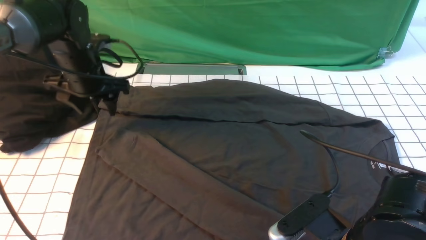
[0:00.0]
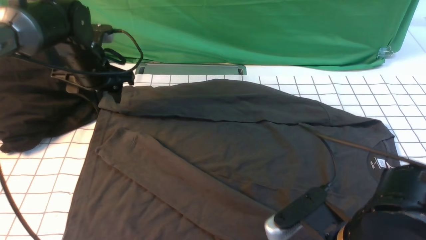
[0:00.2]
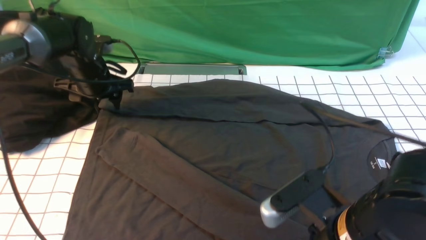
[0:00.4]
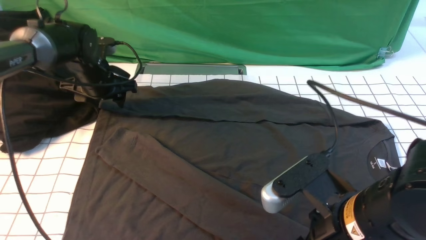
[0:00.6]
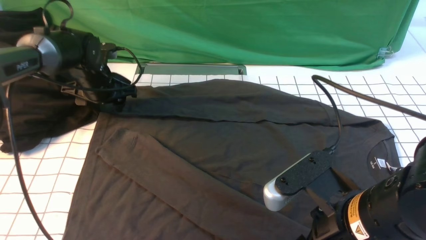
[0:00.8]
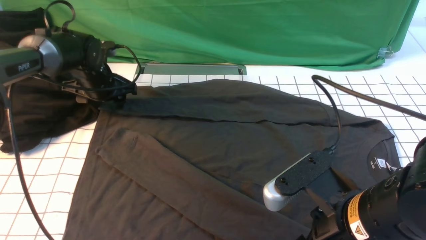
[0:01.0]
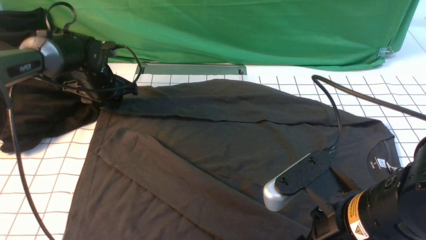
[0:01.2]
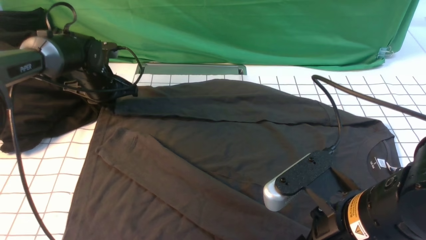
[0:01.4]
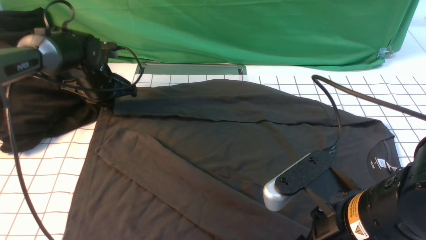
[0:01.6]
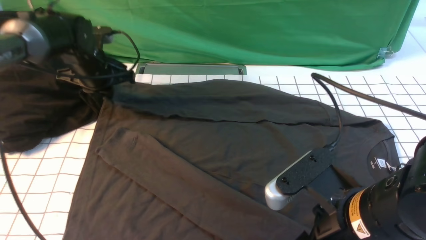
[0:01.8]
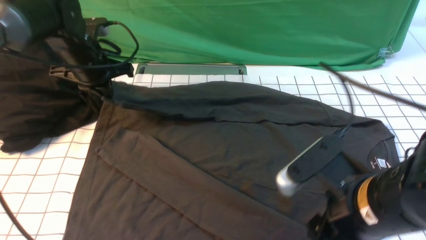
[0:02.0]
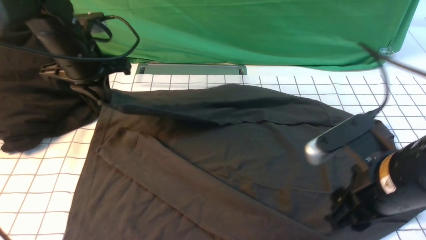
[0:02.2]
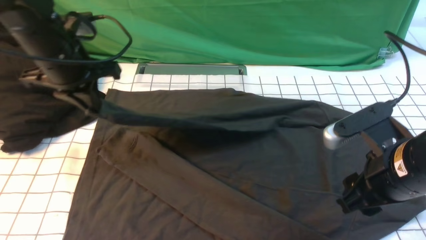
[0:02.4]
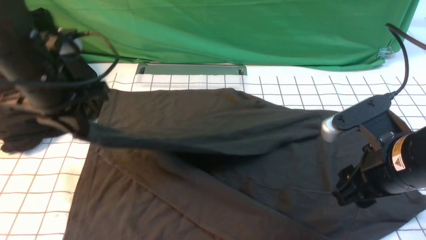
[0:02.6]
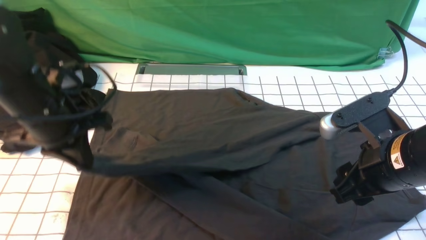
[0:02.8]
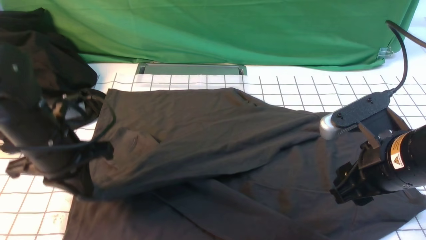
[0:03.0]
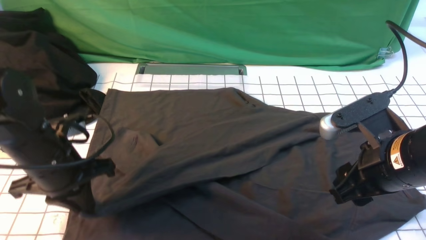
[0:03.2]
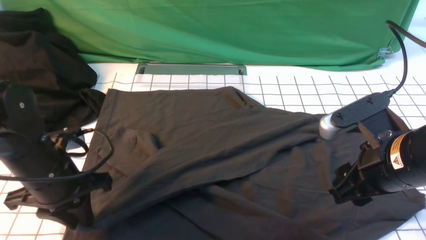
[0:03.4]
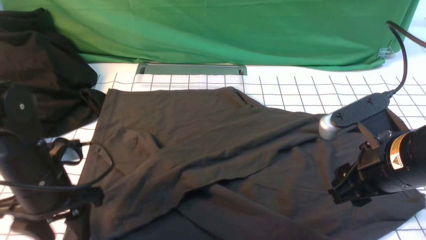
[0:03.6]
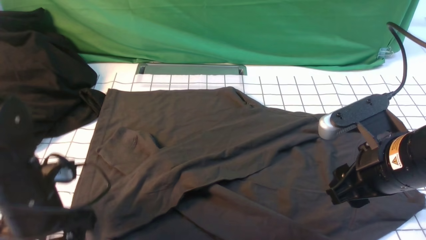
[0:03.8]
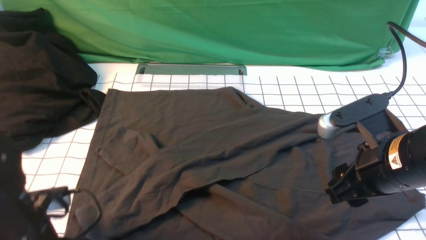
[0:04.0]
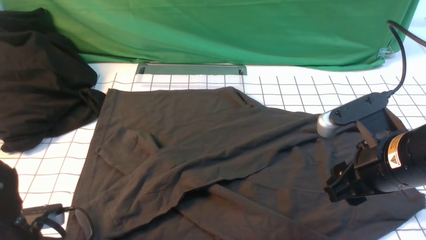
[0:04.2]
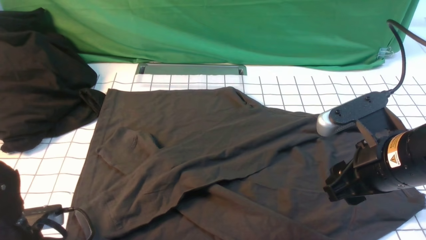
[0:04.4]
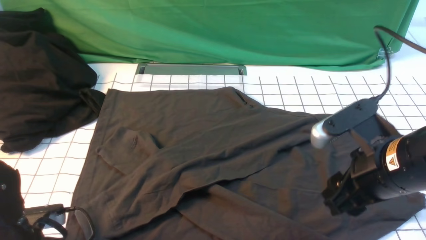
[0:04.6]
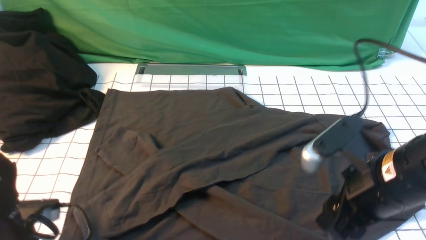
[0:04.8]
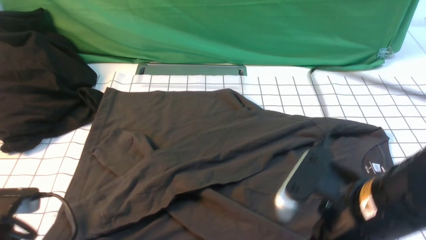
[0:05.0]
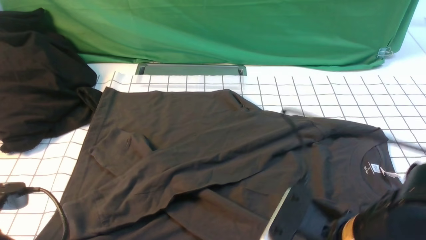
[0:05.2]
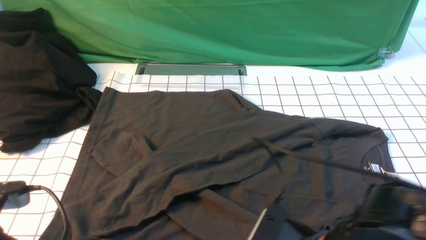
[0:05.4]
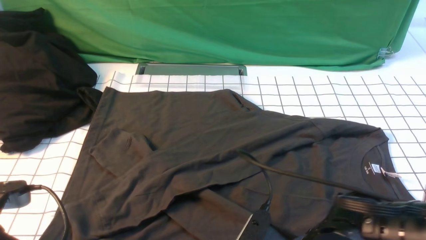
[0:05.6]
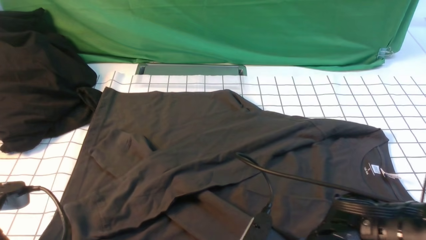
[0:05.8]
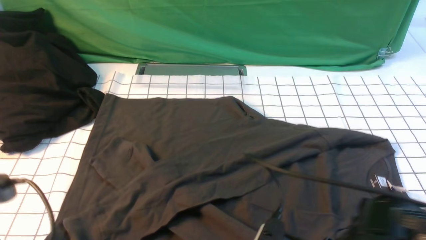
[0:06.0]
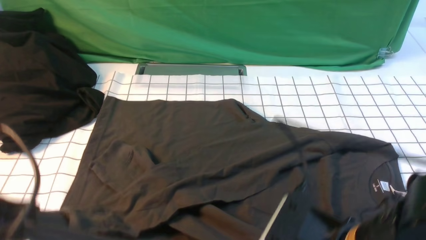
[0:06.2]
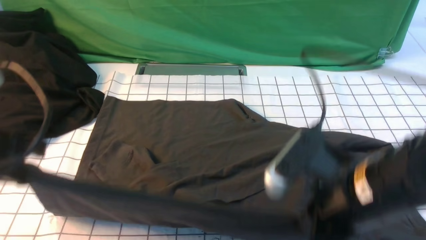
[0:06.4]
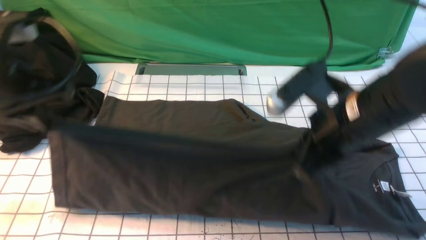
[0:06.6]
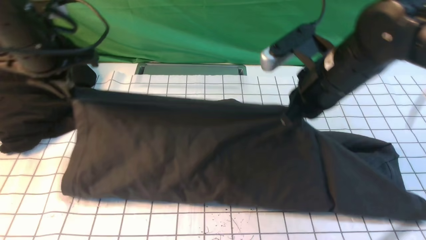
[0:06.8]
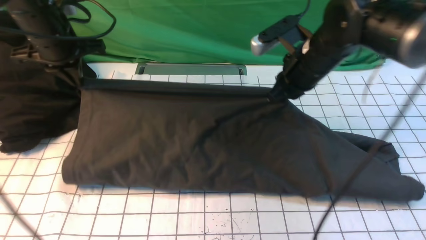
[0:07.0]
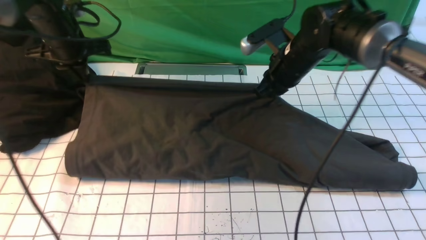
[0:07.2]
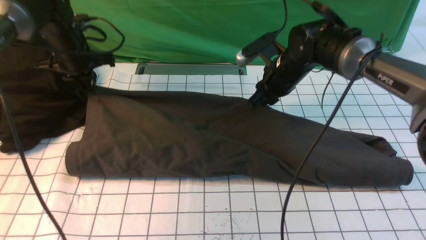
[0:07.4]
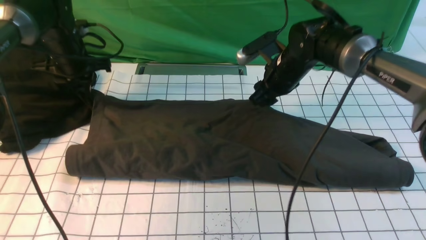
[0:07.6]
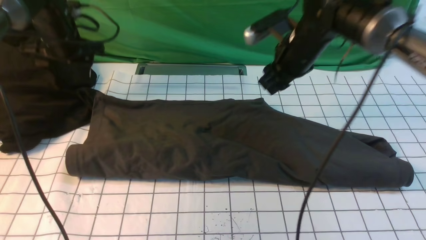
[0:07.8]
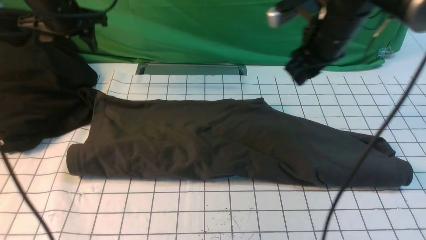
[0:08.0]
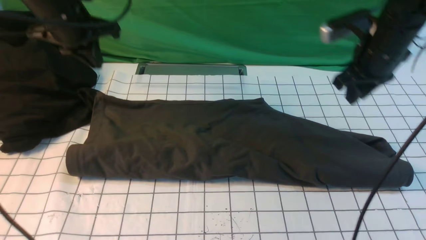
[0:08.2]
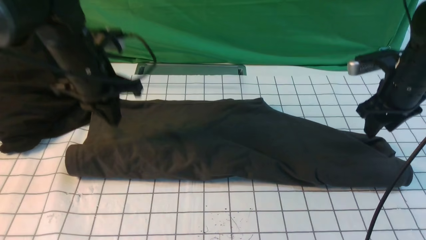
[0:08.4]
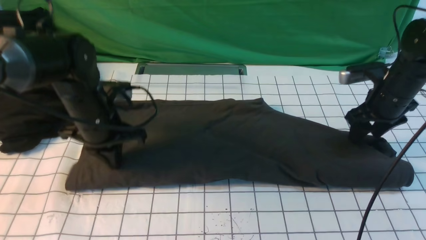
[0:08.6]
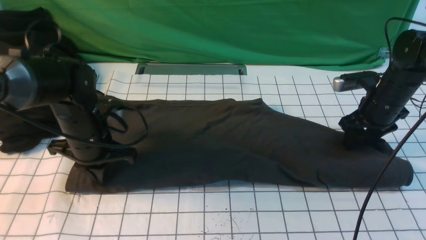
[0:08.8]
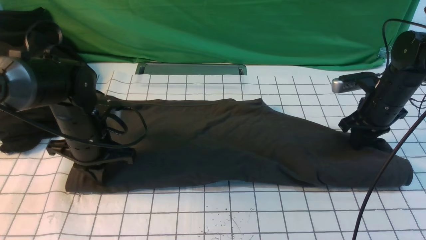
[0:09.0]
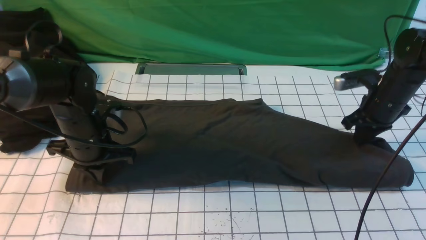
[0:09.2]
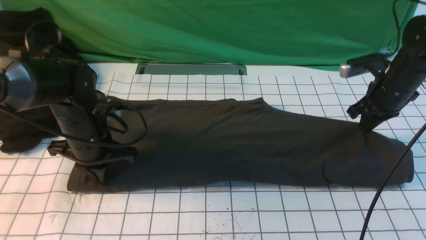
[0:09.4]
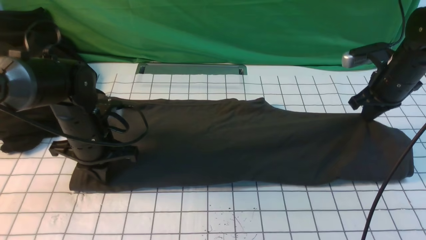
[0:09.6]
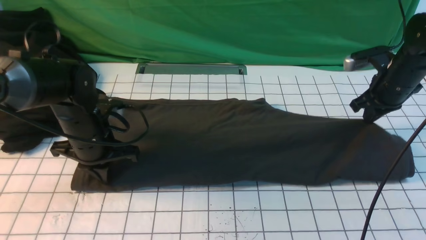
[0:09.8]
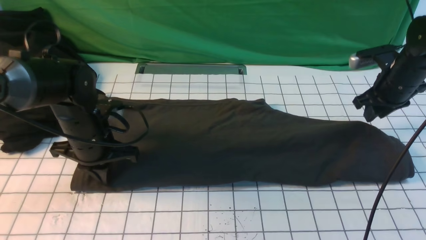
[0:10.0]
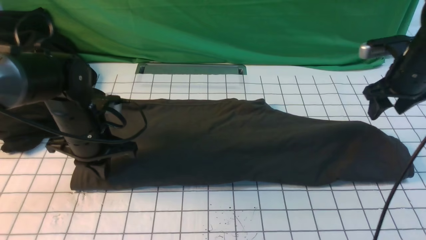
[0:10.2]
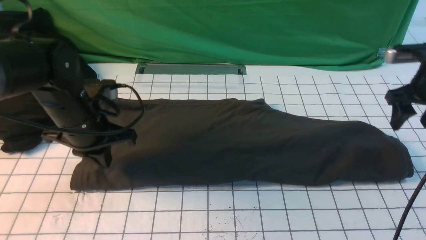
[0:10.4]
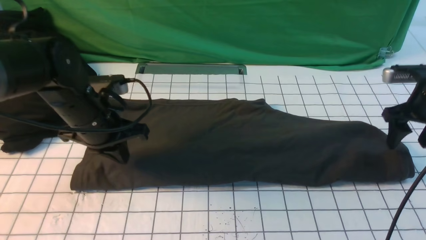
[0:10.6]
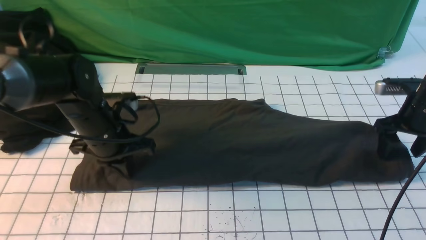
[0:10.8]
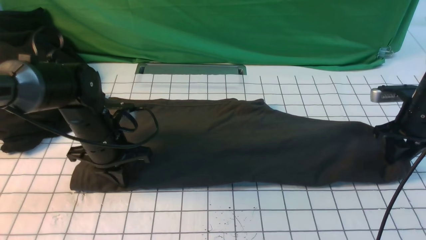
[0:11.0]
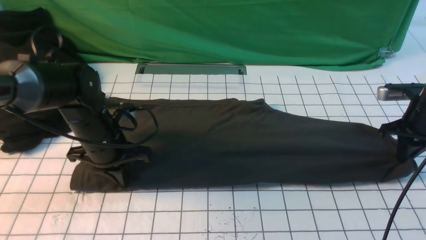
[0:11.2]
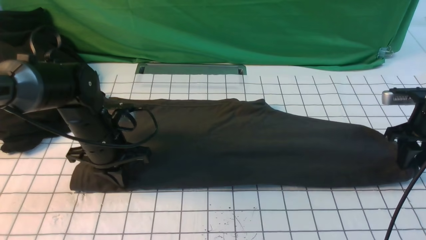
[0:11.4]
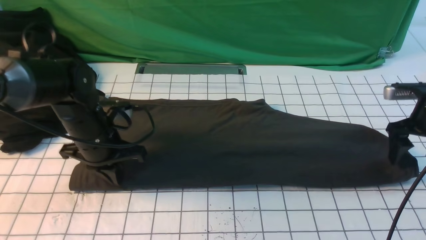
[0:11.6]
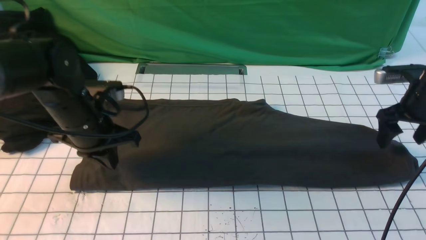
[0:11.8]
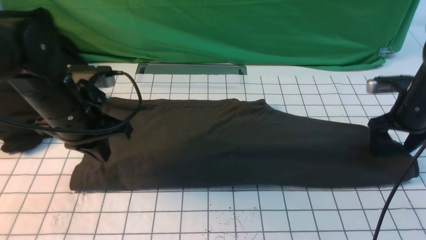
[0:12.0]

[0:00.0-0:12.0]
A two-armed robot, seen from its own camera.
Step, 0:00.0 to 0:01.2: use the left arm to clamp the cuff farthest from it.
Step, 0:01.6 to 0:03.4: use the left arm to drag and drop the cuff onto the cuff closest to the left arm.
Step, 0:03.6 to 0:05.6: use both arms simultaneously to clamp the lower edge of the clothing fabric.
Step, 0:05.8 to 0:07.4: use both arms to drag the lower edge of the fabric forward and fold it over the upper edge.
0:00.0 to 0:01.6: The left gripper moves about 5 cm, and closes. Meanwhile the right gripper heads upward, covering approximately 5 cm.
0:01.6 to 0:03.0: The left gripper heads backward, covering about 20 cm, while the right gripper travels forward and to the right by roughly 10 cm.
0:03.0 to 0:04.4: The left gripper moves backward and downward, roughly 15 cm, and opens up.
0:04.4 to 0:06.0: The left gripper moves upward, some 10 cm, and closes up, while the right gripper travels backward, to the left and downward by about 15 cm, and closes.
0:06.0 to 0:07.6: The grippers both shift forward by about 35 cm. The right gripper opens its fingers, while the left gripper opens its fingers.
0:07.6 to 0:09.0: The right gripper heads to the right, covering approximately 15 cm, and closes its fingers; the left gripper heads backward, to the right and downward, covering approximately 20 cm, and closes its fingers.
0:09.0 to 0:10.4: The right gripper shifts approximately 5 cm upward and to the right, and opens up.
0:10.4 to 0:12.0: The right gripper heads downward, covering roughly 5 cm, and closes and opens again. Meanwhile the left gripper moves roughly 5 cm.

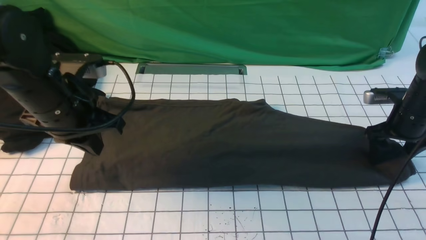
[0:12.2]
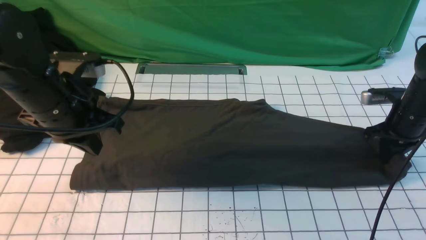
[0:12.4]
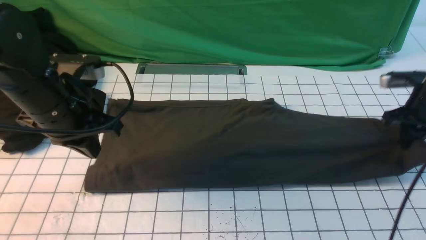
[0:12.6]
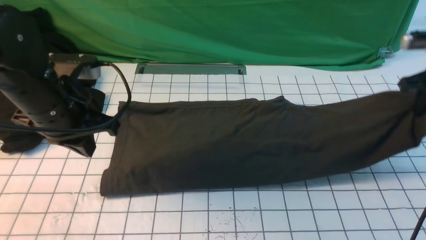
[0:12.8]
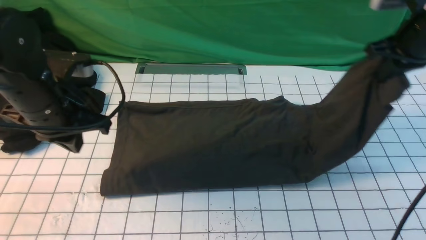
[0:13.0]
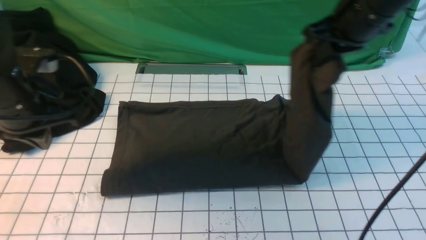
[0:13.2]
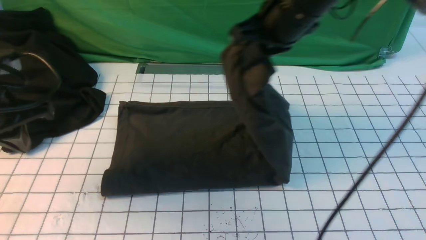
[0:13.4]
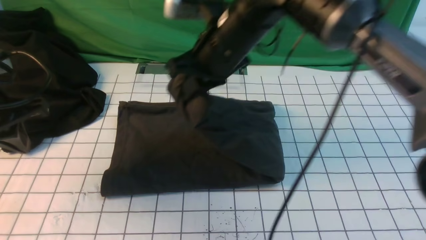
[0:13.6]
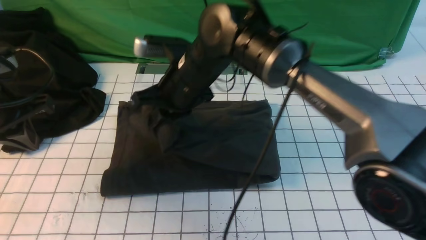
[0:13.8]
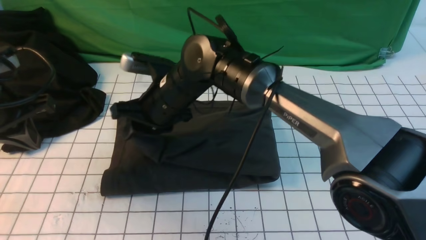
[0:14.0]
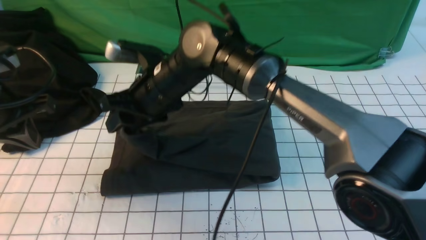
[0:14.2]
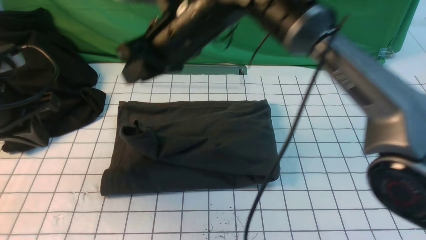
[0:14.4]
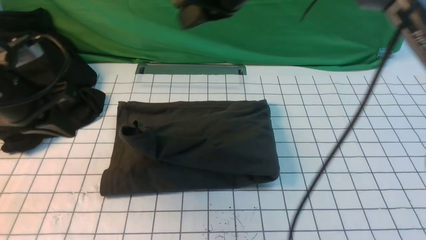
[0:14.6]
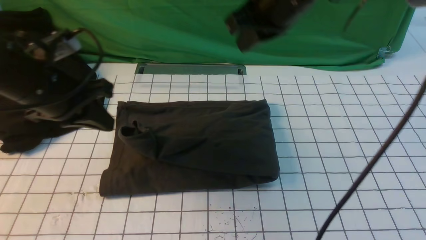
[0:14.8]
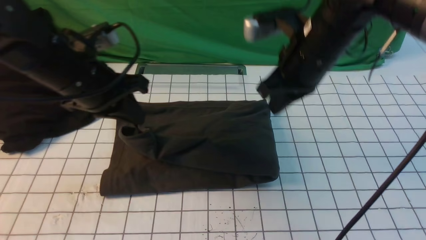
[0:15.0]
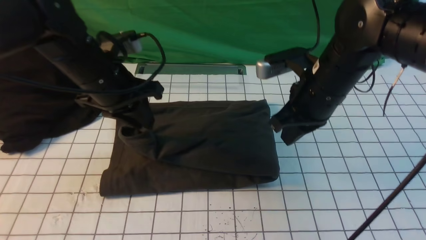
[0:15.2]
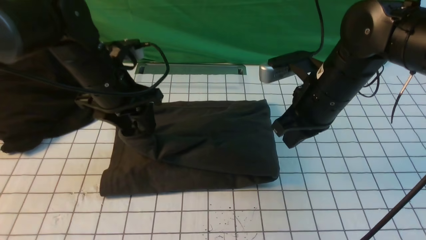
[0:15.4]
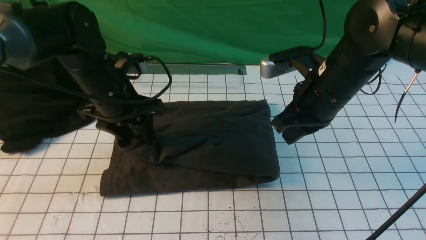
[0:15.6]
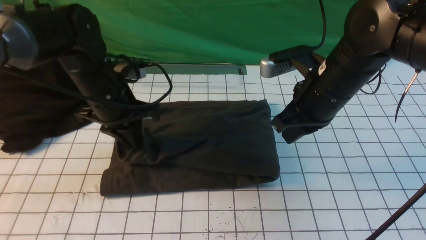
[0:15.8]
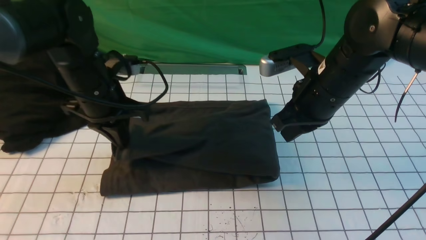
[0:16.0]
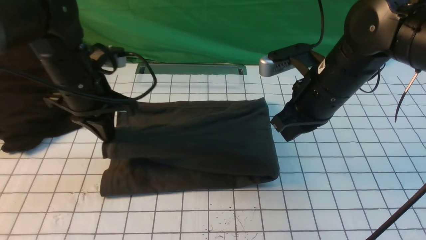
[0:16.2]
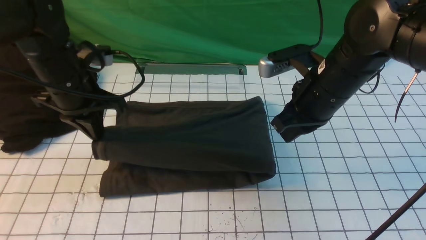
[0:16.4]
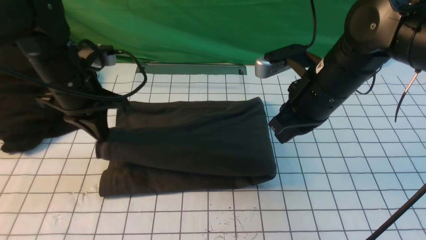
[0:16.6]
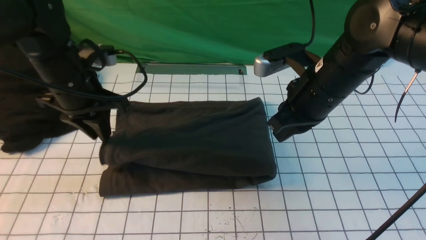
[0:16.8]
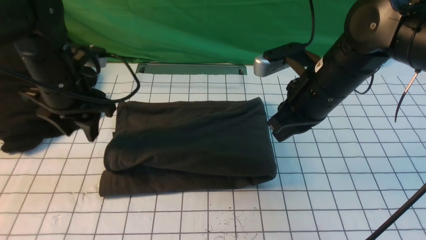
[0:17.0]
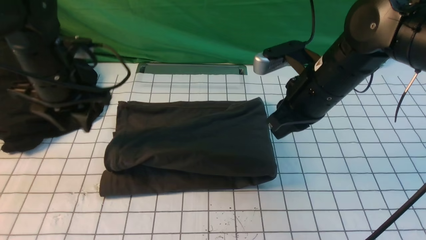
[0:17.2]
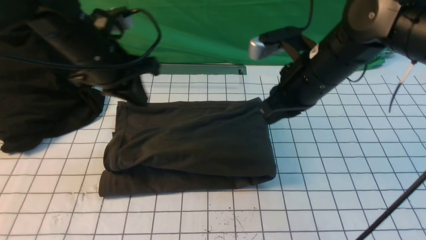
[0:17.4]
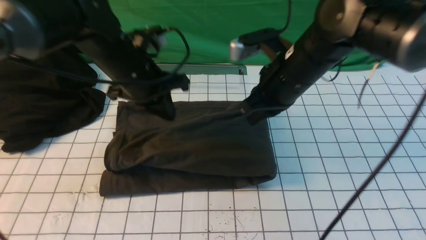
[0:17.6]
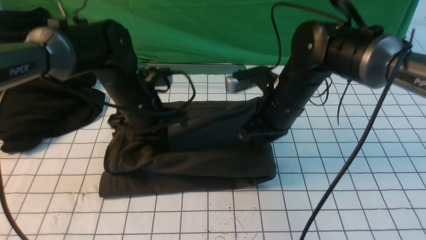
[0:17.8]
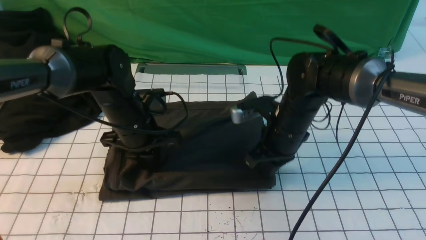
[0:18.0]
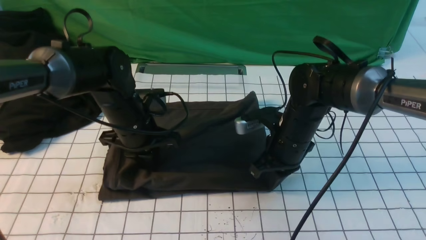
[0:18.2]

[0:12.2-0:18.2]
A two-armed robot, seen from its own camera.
Step, 0:12.6 to 0:14.2: use the right arm to drag the right edge of the fabric to the left and folds it over the left edge.
0:12.2 to 0:13.8: The left gripper moves to the left, roughly 10 cm. Meanwhile the right gripper shifts some 40 cm to the left, and closes up.
0:13.8 to 0:15.2: The right gripper goes roughly 20 cm to the right, while the left gripper moves to the right and forward, about 15 cm, and opens up.
0:15.2 to 0:16.6: There are only small adjustments of the grippers.
0:16.6 to 0:18.2: The right gripper goes approximately 10 cm downward, while the left gripper heads downward and to the right, covering some 10 cm, and opens and closes again.
